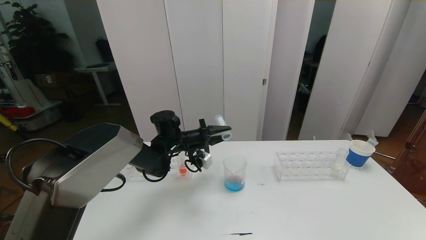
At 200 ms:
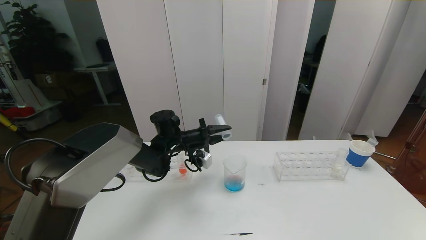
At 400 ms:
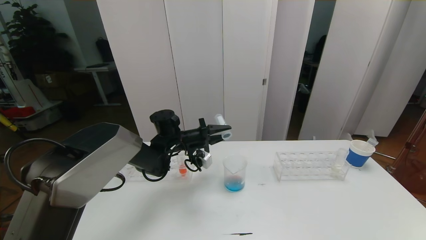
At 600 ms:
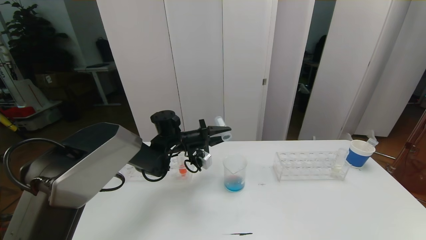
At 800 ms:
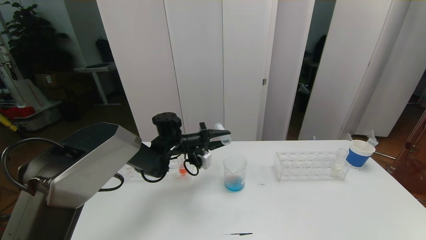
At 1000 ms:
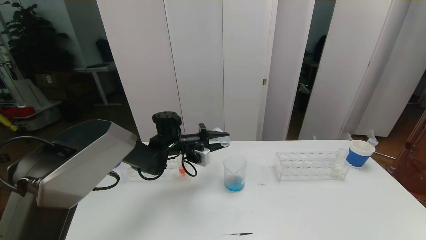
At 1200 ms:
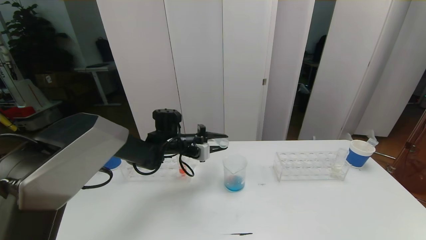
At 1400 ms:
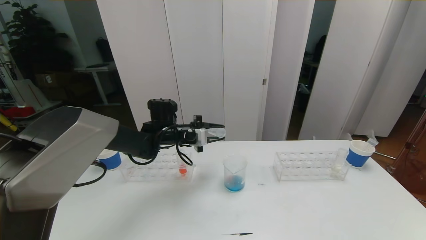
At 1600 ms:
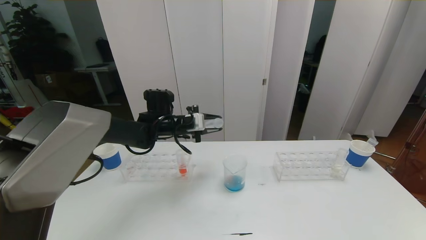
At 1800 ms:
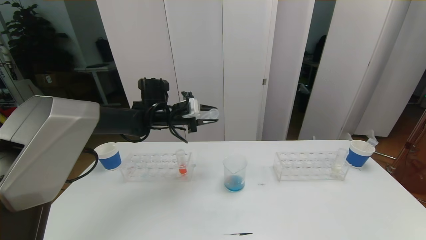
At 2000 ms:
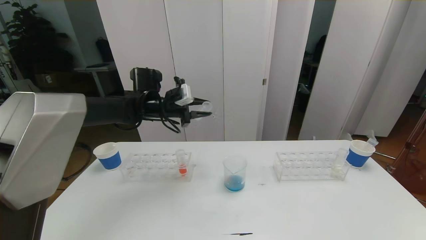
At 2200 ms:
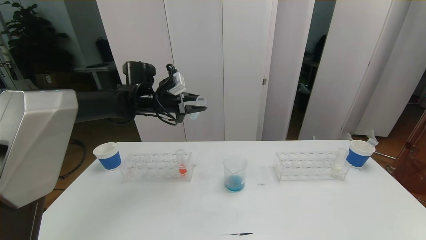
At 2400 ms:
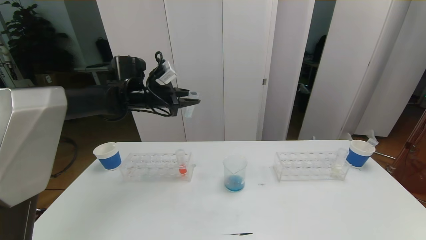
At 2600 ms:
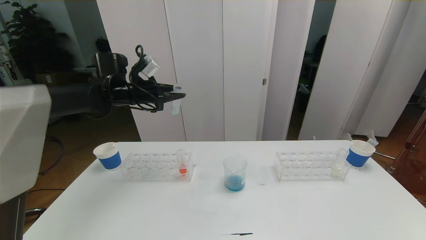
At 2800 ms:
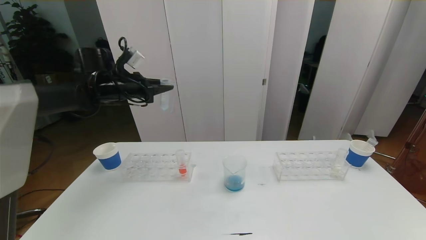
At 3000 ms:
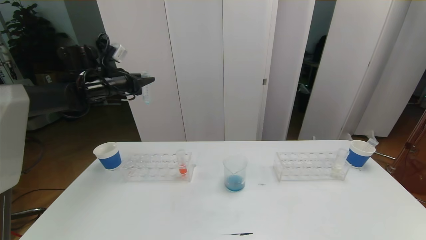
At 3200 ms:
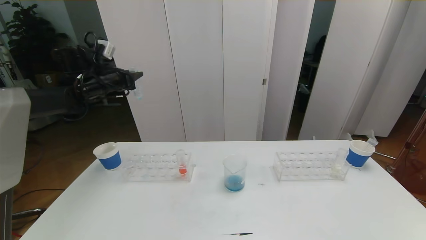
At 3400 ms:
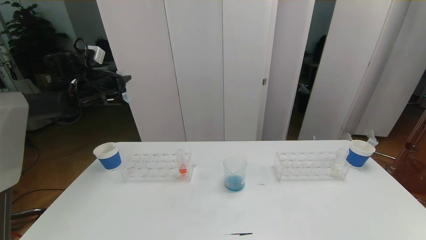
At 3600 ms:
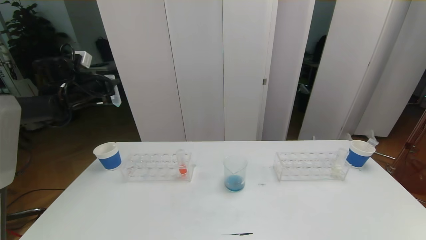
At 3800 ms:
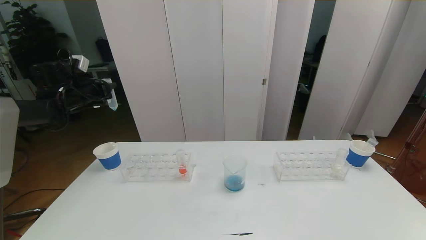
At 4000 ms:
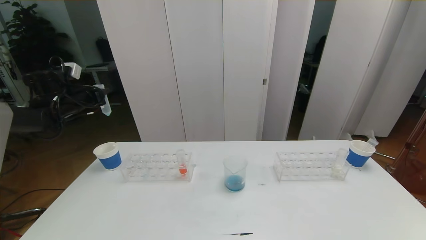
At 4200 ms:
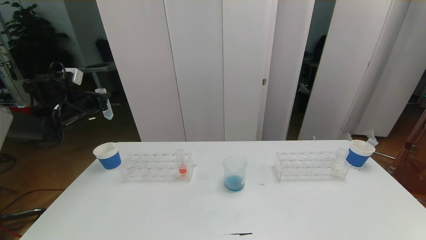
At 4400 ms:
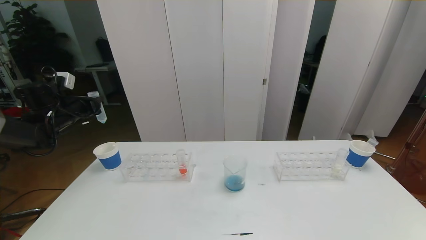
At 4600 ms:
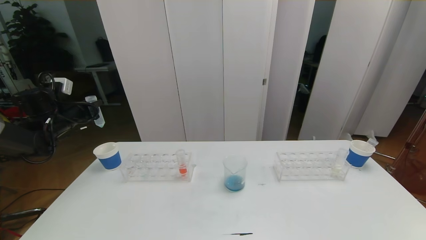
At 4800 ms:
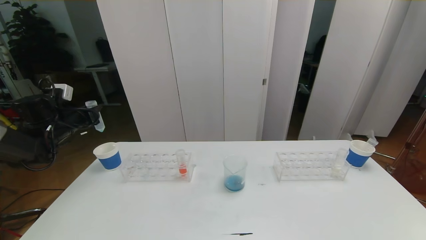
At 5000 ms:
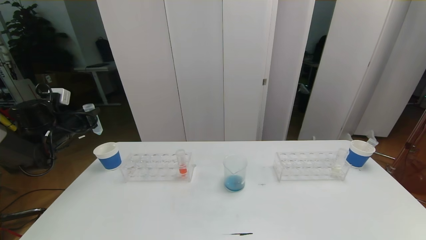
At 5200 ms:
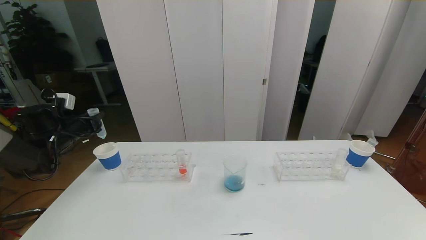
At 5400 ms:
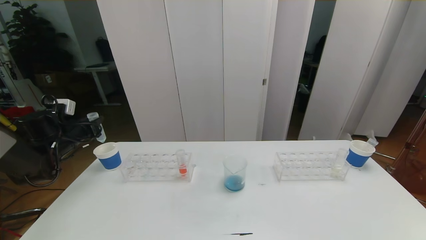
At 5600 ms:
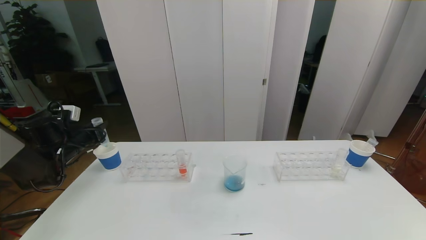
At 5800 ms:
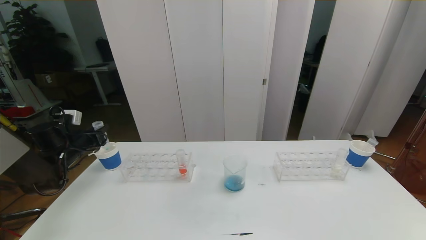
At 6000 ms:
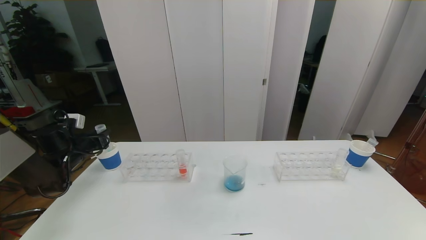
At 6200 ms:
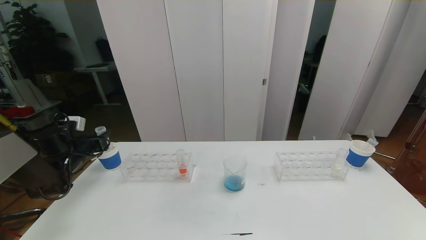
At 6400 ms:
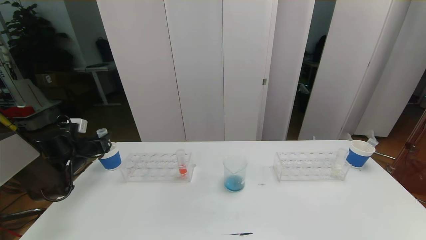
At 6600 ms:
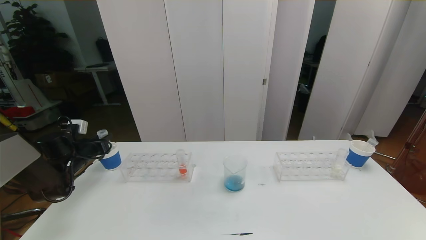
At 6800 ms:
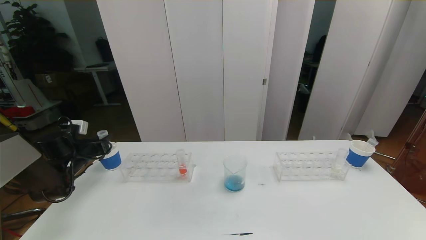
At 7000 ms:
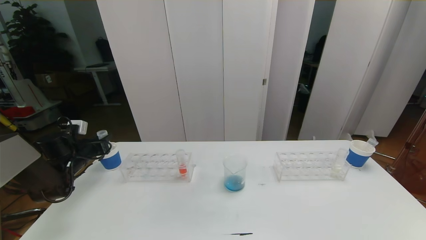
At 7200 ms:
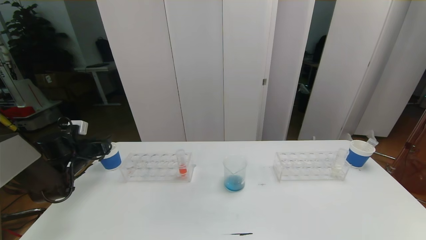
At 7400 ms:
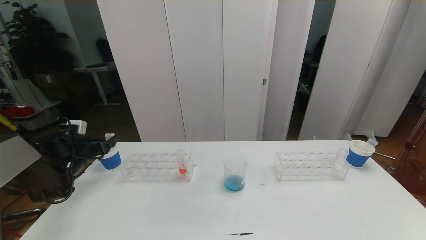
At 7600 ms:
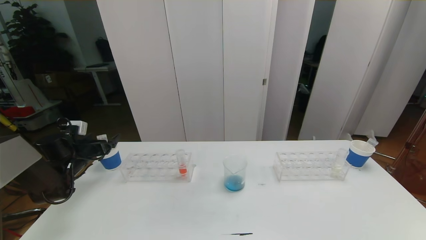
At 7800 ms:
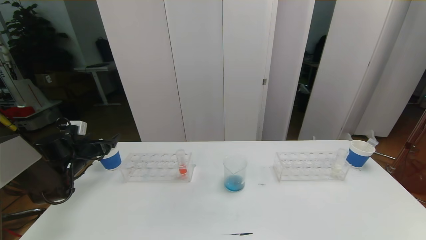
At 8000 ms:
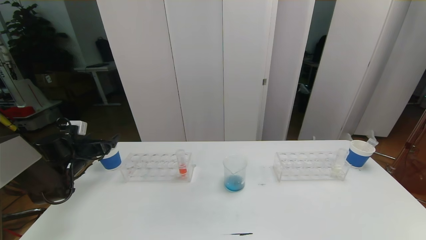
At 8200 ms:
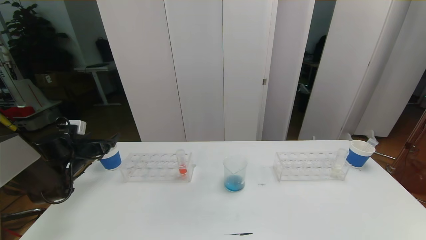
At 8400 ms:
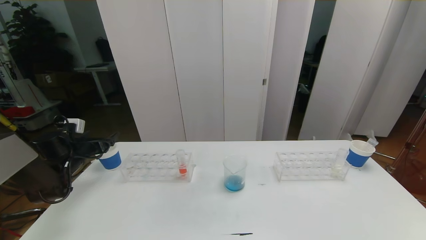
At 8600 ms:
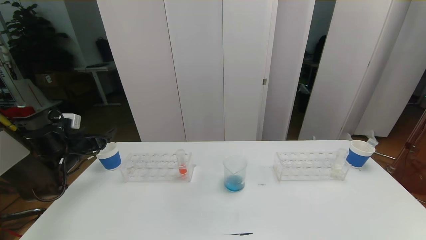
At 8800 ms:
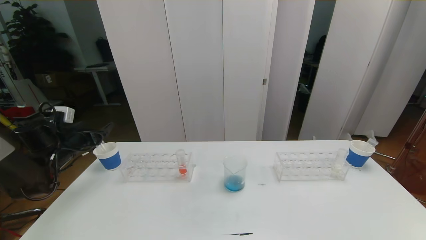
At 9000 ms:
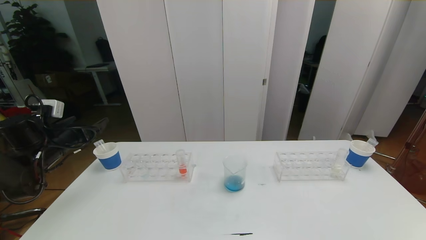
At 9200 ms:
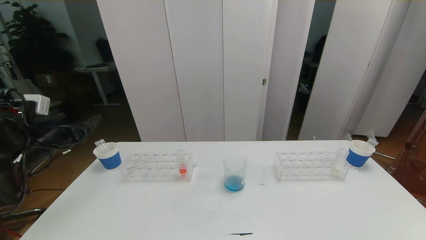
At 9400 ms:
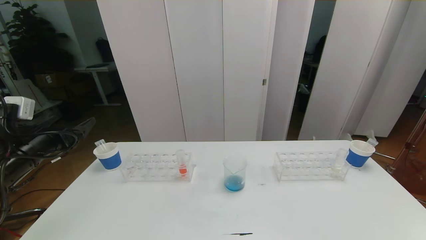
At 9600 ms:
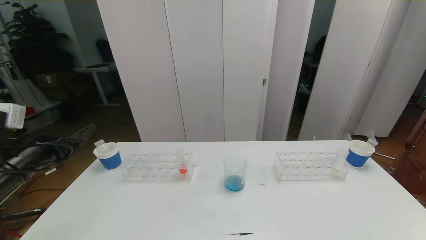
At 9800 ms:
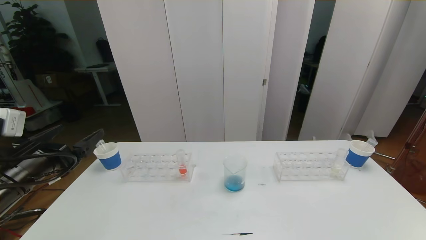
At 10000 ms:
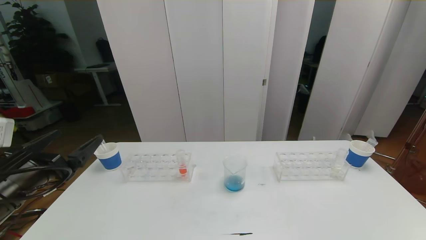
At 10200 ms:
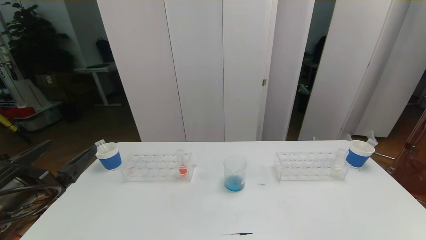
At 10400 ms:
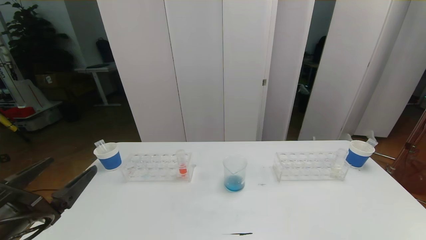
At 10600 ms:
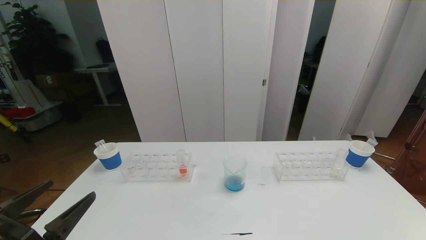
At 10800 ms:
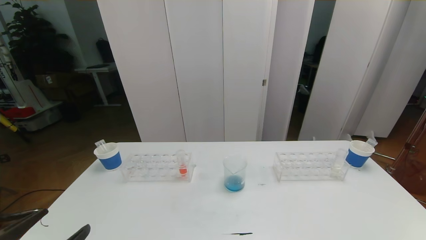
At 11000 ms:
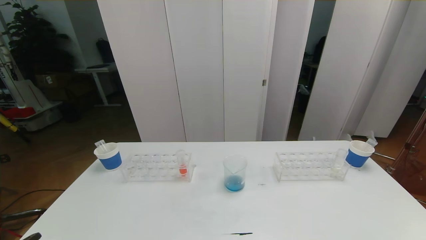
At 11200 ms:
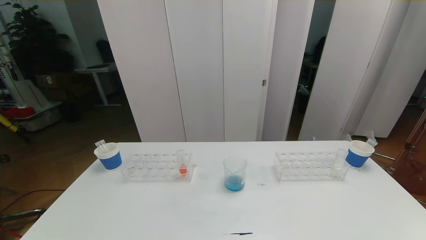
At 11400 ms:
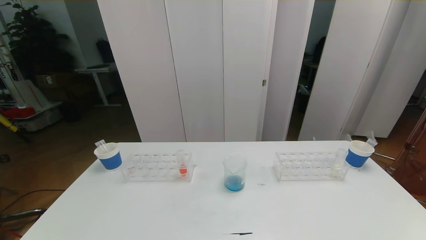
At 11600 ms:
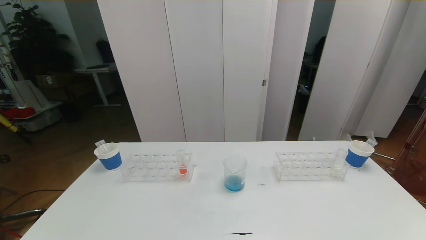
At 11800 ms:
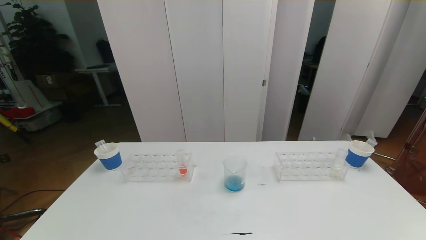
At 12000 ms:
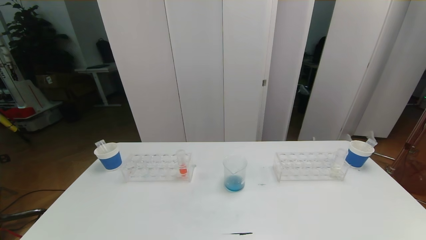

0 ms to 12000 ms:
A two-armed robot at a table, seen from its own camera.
Task of the whole recording: pick up the test tube with red pigment the test tube with blue pigment and the test tube with white pigment by grippers and pour them into the beaker.
0 ms to 1600 ms: The left gripper shifts some 5 cm upward.
1600 ms to 3000 ms: The left gripper travels to the left and upward by some 20 cm.
3000 ms to 4400 ms: The left gripper travels to the left and downward by some 15 cm.
4400 ms to 6000 ms: The left gripper moves downward, approximately 10 cm.
6000 ms to 7600 ms: The left gripper opens up.
7600 ms to 9000 ms: The left gripper shifts roughly 10 cm upward and backward.
9000 ms to 10400 ms: The left gripper shifts approximately 25 cm backward and to the right.
10400 ms to 12000 ms: The left gripper goes about 15 cm backward and downward.

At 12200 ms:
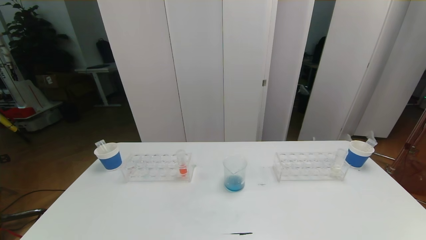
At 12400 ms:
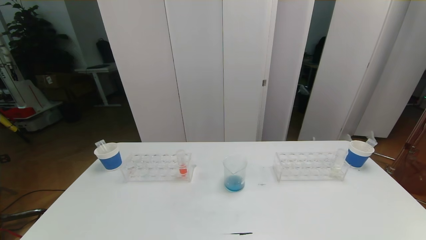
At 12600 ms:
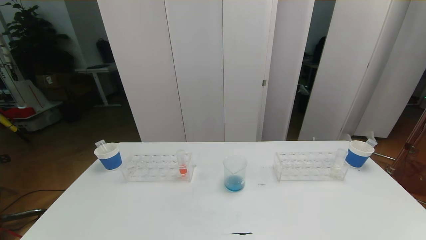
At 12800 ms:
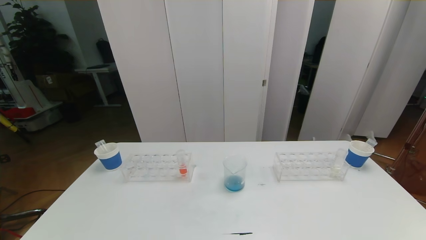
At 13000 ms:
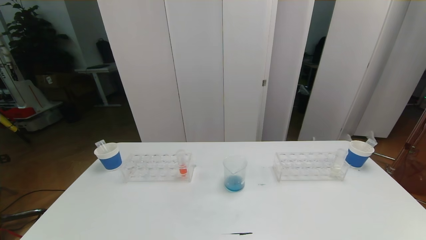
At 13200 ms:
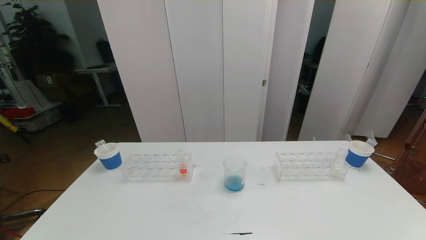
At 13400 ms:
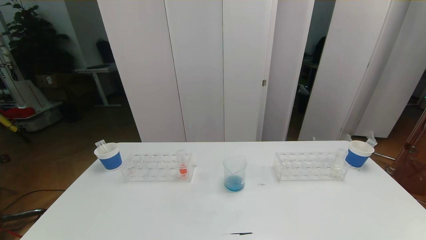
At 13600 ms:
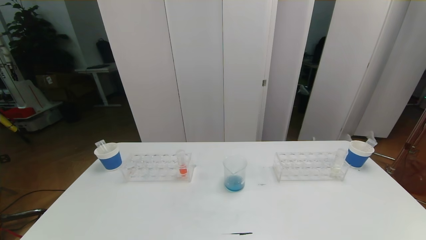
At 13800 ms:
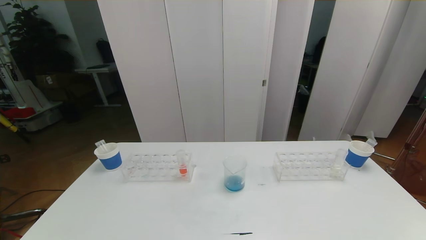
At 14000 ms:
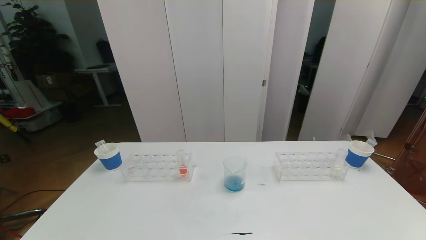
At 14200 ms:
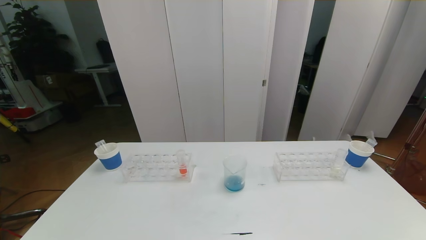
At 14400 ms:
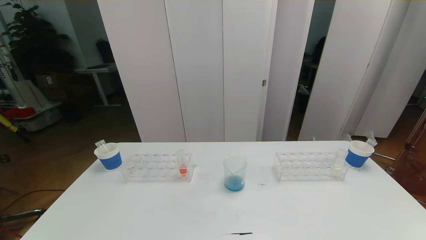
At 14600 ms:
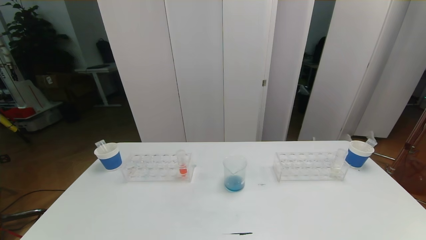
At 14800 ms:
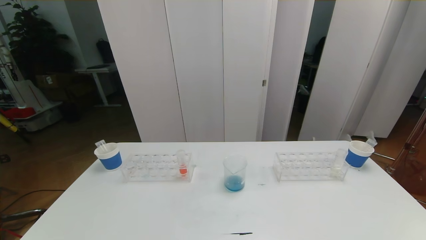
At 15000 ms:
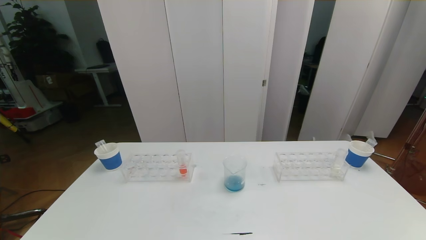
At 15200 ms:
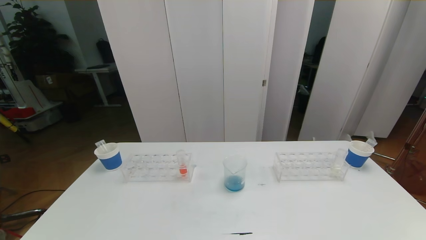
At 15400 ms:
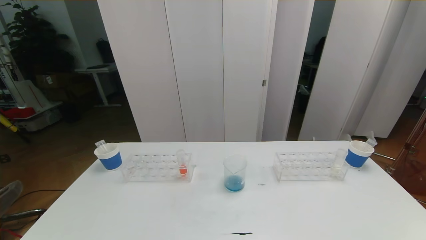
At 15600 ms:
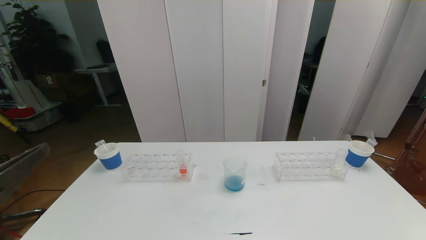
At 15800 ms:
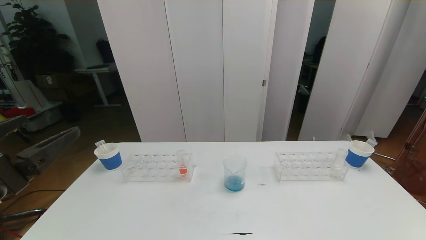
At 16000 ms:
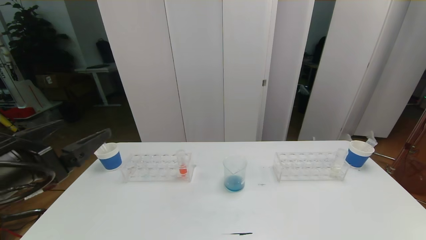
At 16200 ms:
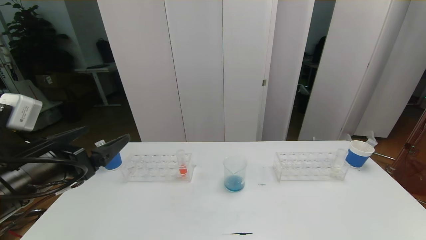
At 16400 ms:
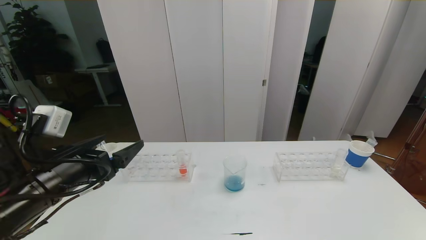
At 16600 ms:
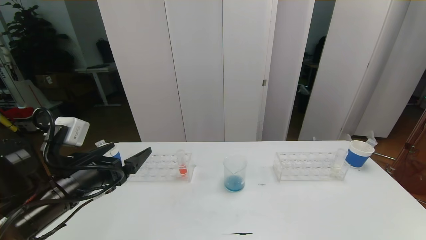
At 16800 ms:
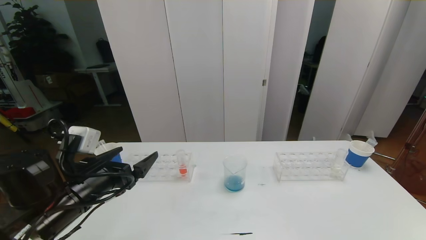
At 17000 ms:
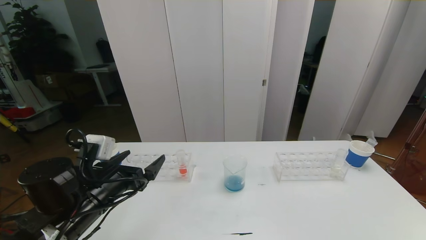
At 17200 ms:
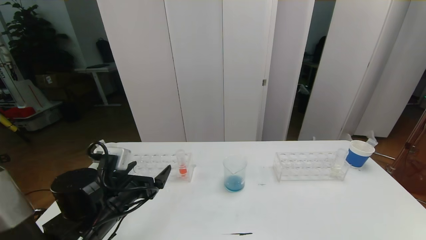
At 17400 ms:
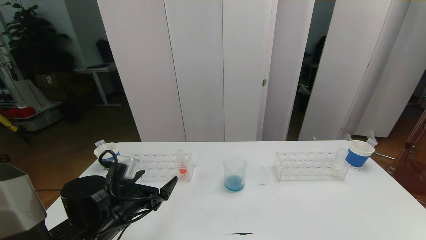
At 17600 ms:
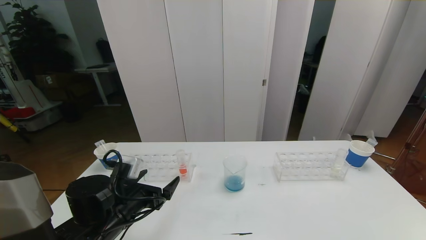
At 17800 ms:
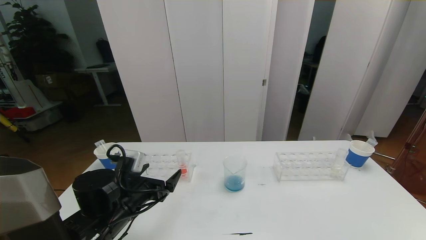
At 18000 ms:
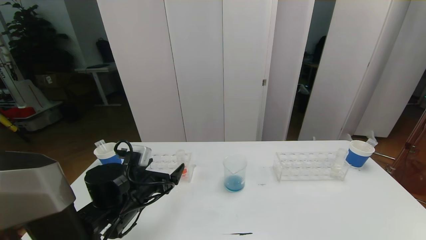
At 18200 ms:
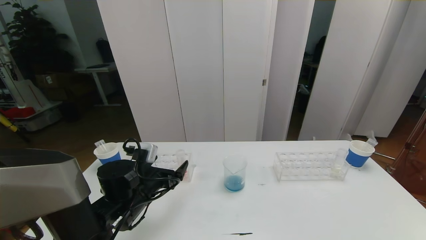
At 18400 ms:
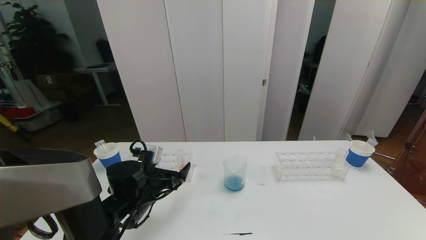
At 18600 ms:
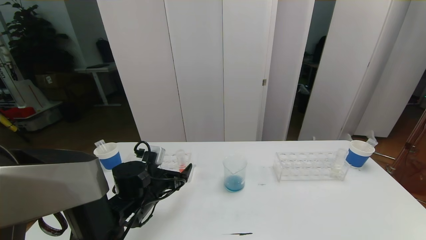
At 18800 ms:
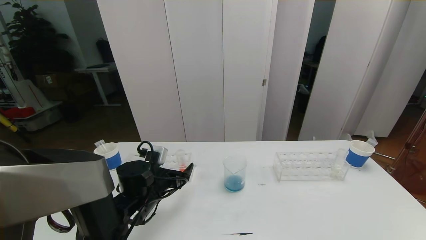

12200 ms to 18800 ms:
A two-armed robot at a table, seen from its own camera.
Task of the whole recording: pick up the test tube with red pigment the test tube with blue pigment and the test tube with white pigment by grippers and pour them into the beaker.
12200 ms to 13800 ms: Neither gripper changes place.
15400 ms to 17200 ms: The left gripper goes roughly 25 cm forward and downward.
17200 ms to 18800 ms: The left gripper travels forward by roughly 5 cm.
